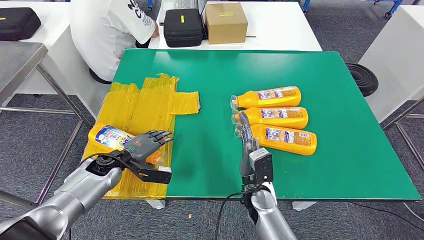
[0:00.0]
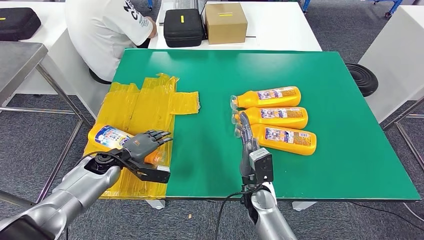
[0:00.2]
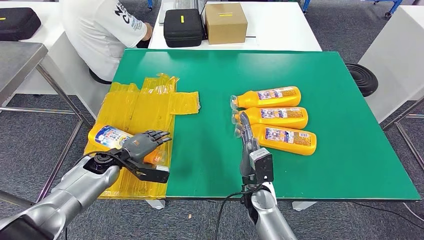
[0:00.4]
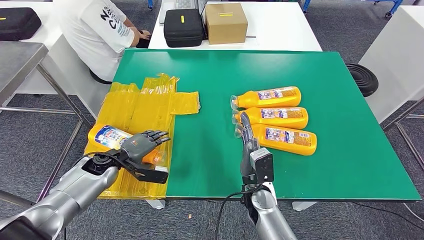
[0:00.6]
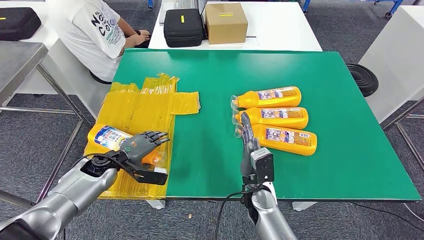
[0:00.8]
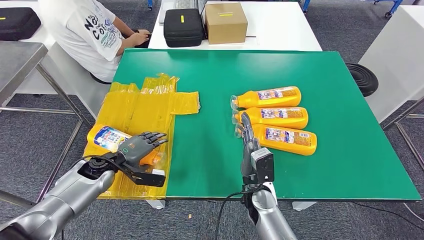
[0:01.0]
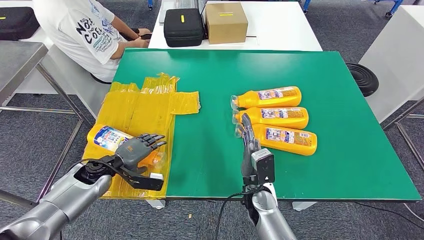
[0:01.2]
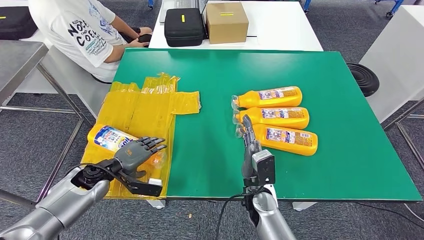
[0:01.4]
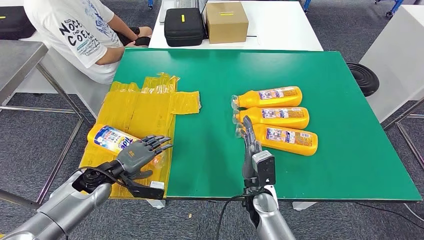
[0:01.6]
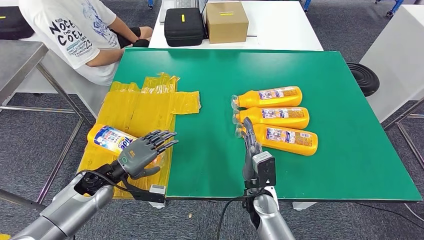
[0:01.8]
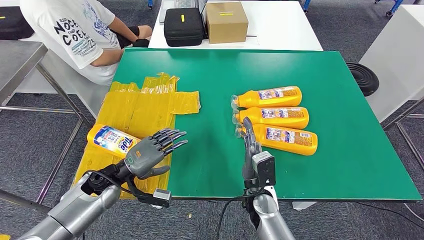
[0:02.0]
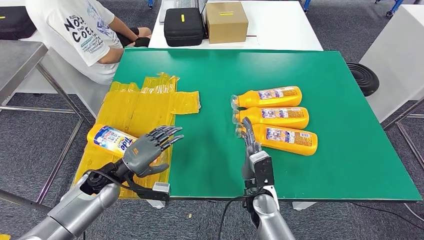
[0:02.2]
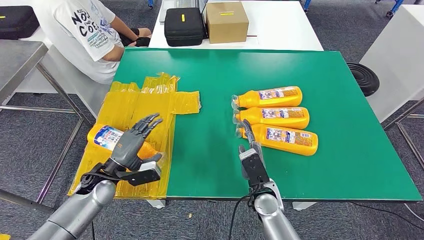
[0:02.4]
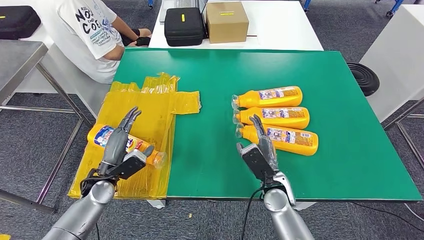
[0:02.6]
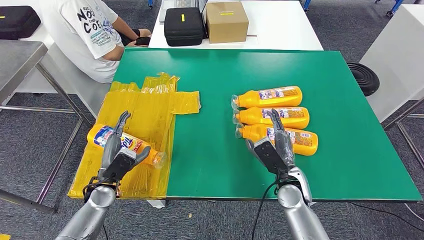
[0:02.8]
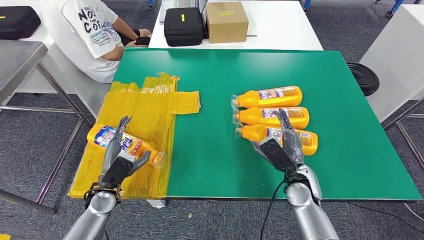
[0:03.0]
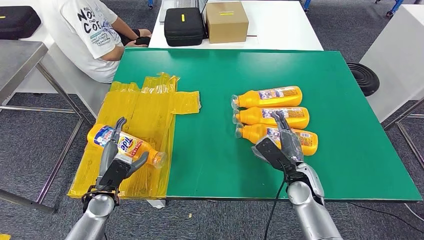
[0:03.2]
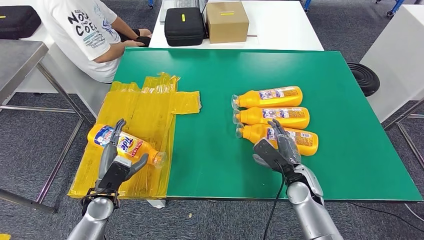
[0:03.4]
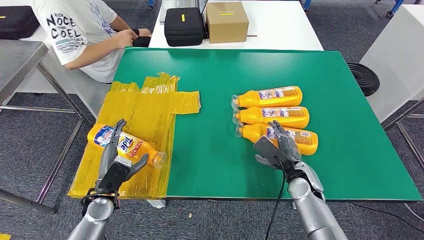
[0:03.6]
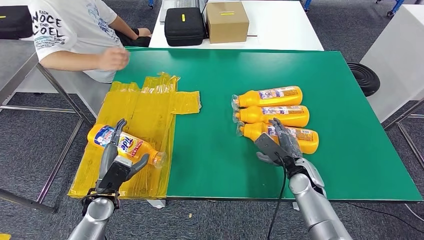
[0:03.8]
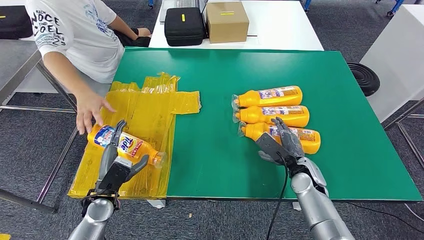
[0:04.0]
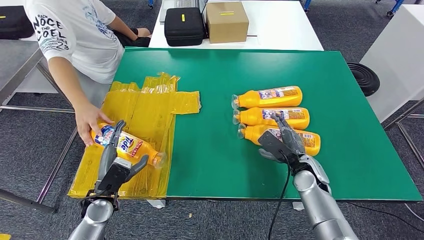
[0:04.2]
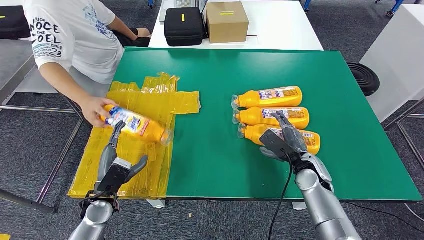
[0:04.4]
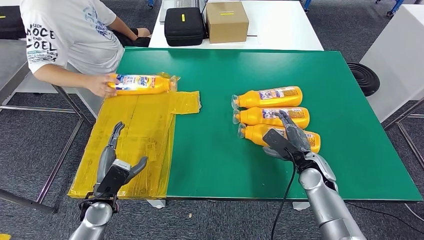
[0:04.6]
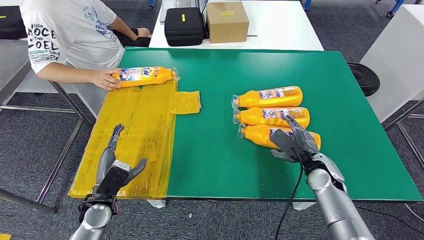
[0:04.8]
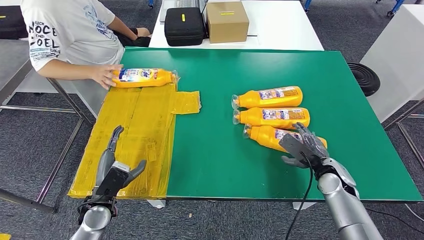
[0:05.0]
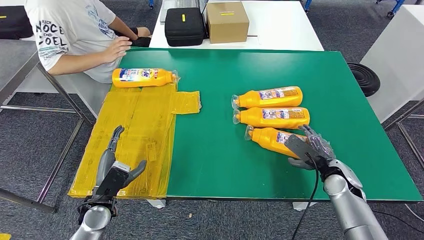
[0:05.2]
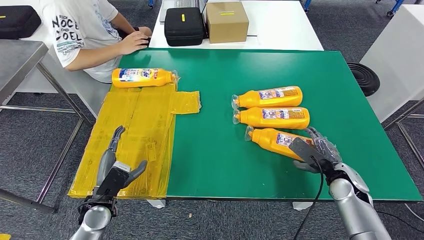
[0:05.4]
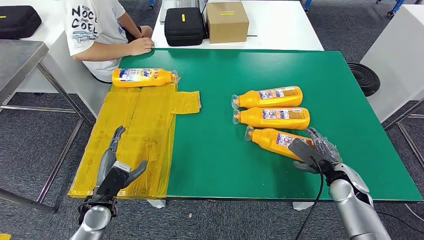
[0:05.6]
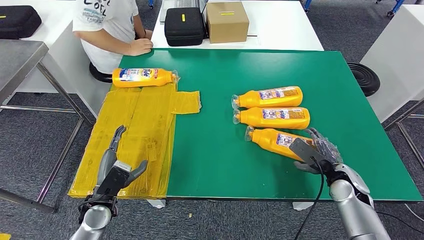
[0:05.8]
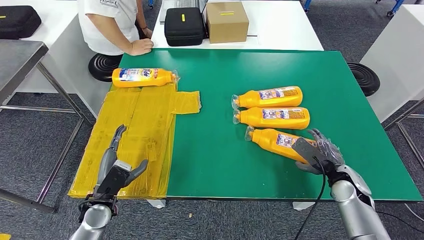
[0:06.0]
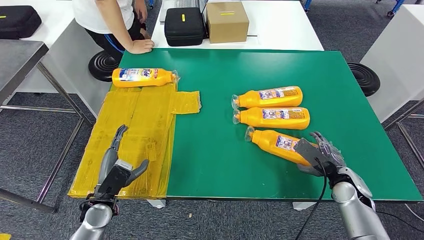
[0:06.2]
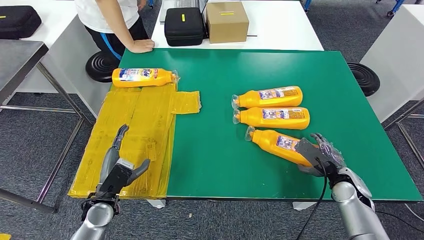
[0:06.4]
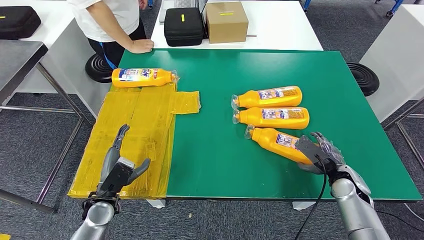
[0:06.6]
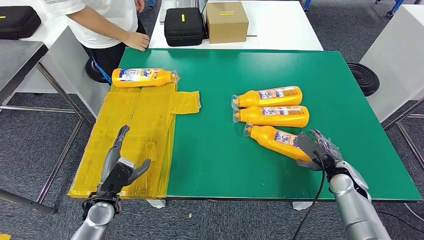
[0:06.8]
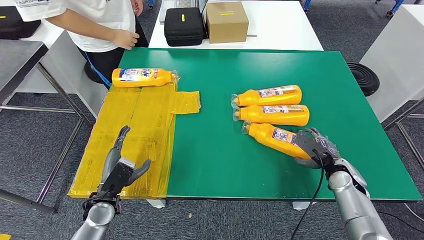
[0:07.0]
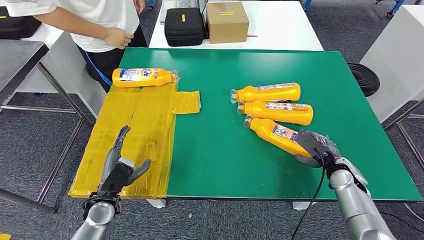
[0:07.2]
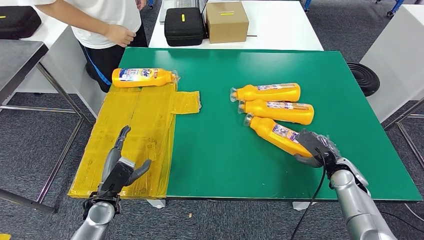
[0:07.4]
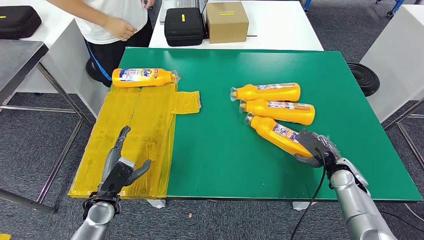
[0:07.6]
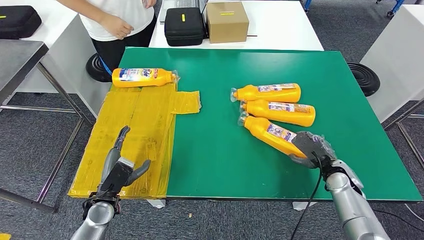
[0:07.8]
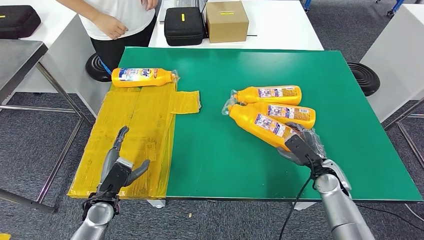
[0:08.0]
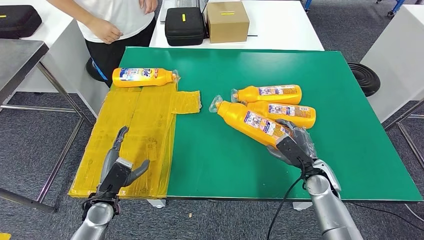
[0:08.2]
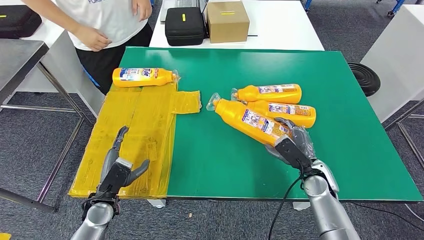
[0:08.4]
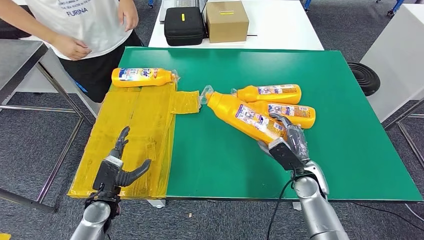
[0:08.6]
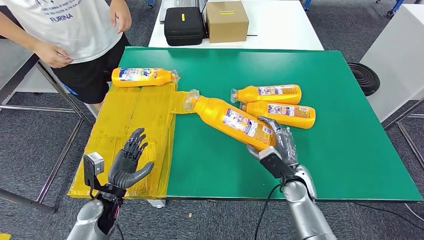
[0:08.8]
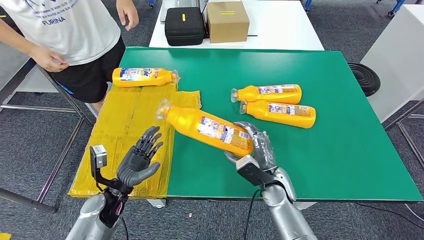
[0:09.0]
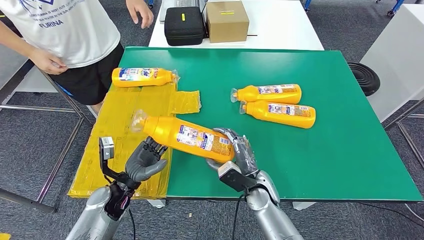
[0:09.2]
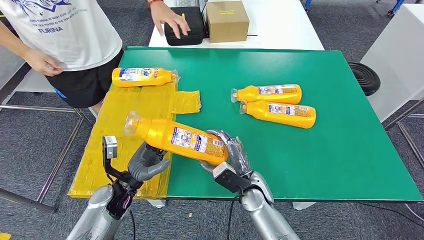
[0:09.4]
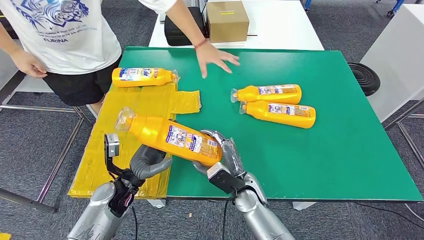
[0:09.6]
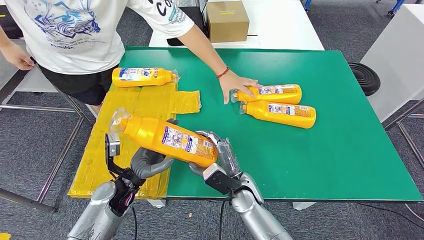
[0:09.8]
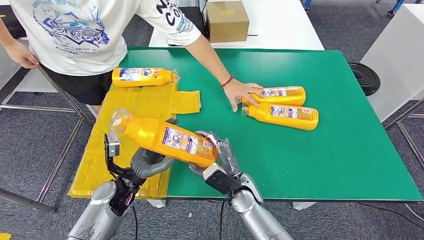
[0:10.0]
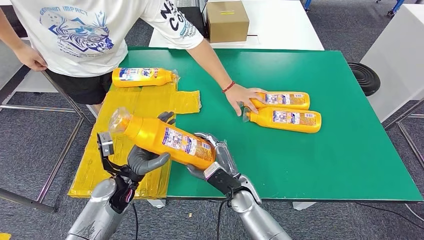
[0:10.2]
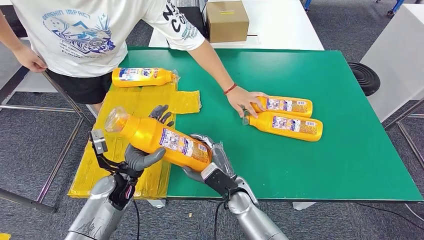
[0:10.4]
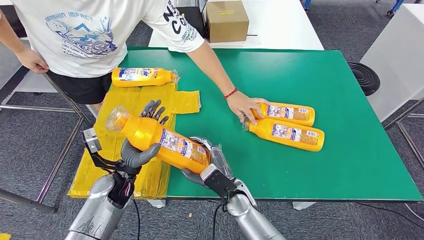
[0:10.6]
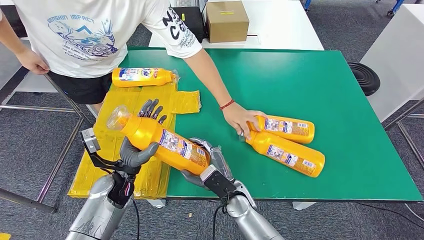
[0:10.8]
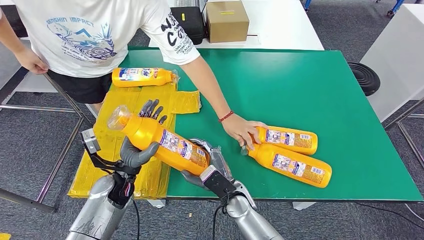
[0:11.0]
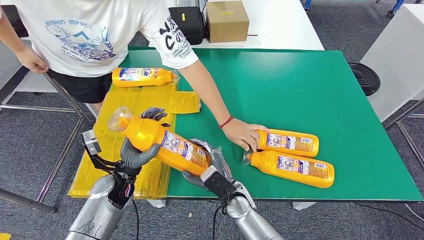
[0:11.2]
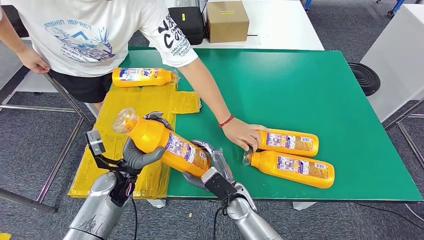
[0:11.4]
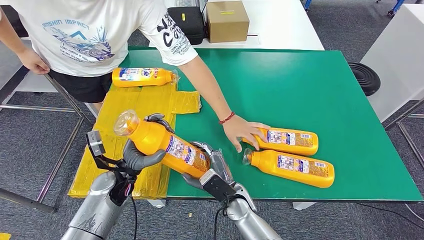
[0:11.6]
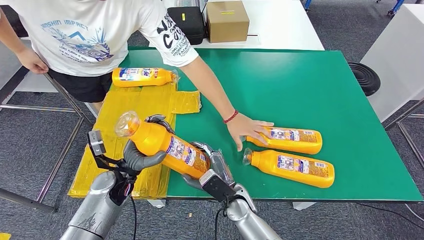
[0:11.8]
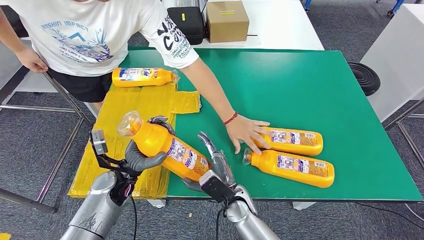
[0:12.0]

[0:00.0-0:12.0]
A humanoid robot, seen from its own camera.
Step, 0:00.0 to 0:09.8: Pick up the bottle from the table.
0:00.0 to 0:01.6: The hands make only small movements.
0:01.6 to 0:03.0: The left hand shifts by some 5 cm. The right hand heads to the right, covering some 10 cm.
0:03.0 to 0:04.4: The right hand shifts by some 5 cm.
0:06.0 to 0:07.6: There are only small adjustments of the hands.

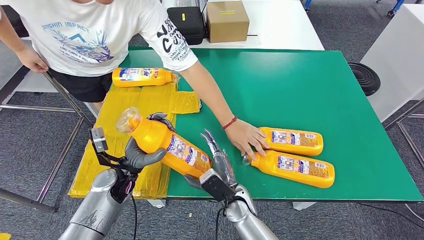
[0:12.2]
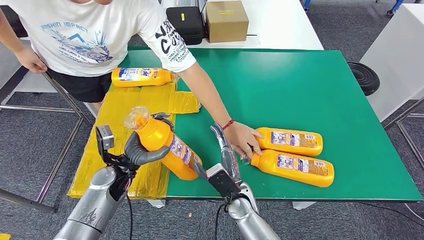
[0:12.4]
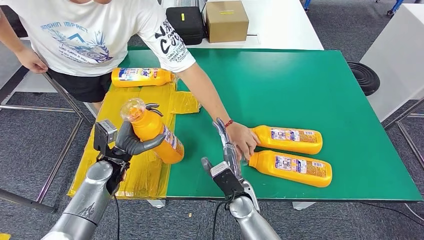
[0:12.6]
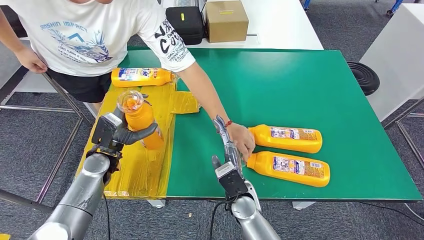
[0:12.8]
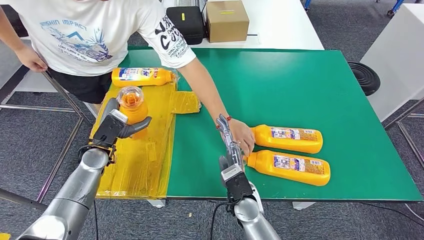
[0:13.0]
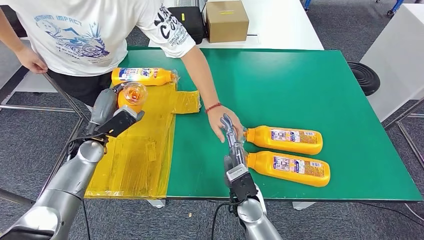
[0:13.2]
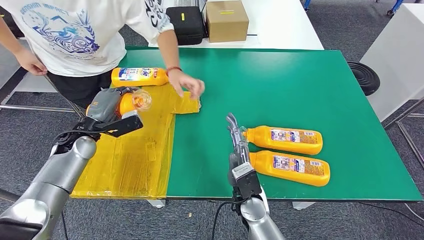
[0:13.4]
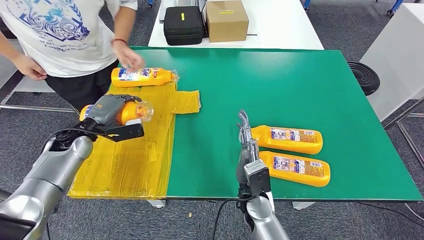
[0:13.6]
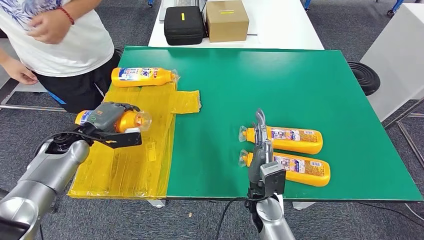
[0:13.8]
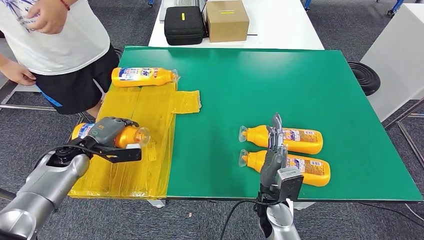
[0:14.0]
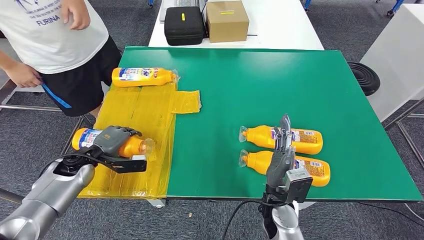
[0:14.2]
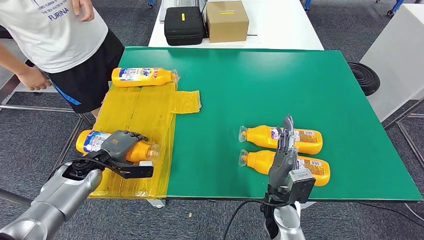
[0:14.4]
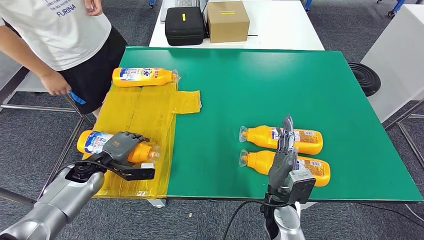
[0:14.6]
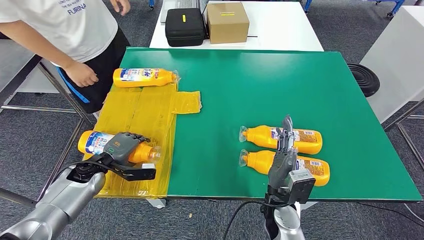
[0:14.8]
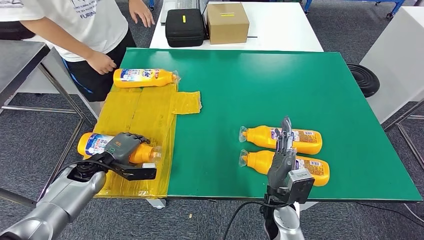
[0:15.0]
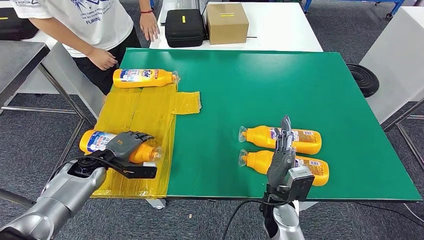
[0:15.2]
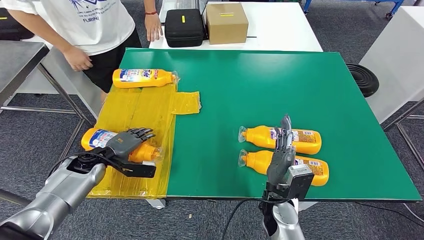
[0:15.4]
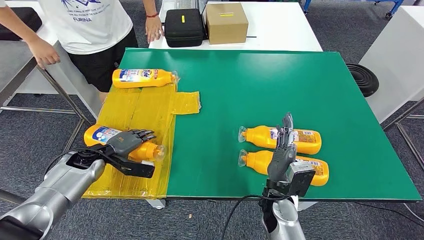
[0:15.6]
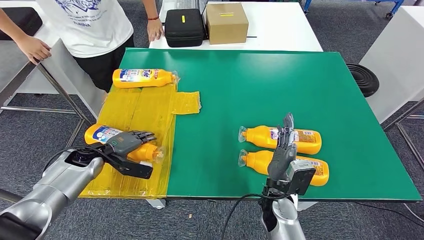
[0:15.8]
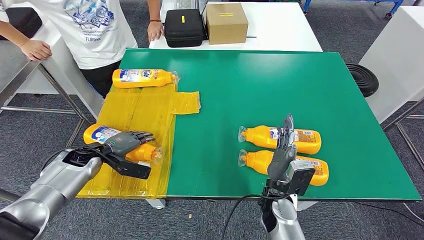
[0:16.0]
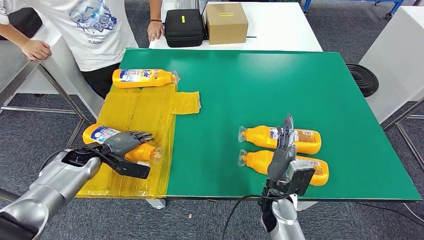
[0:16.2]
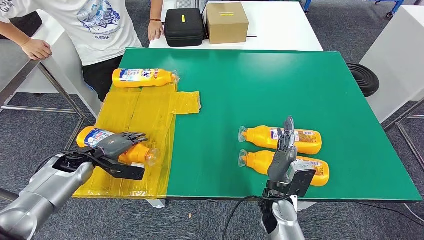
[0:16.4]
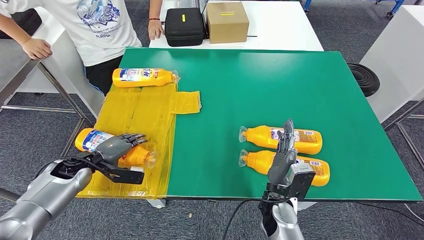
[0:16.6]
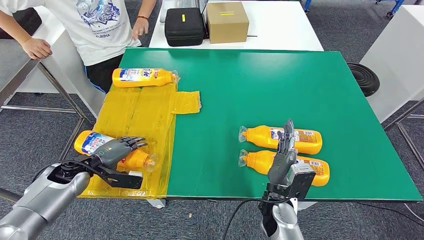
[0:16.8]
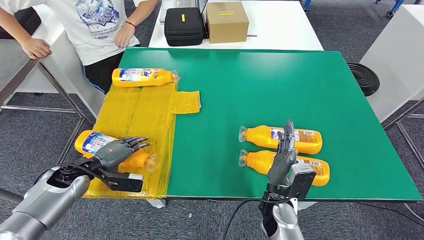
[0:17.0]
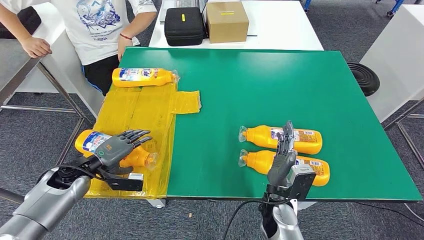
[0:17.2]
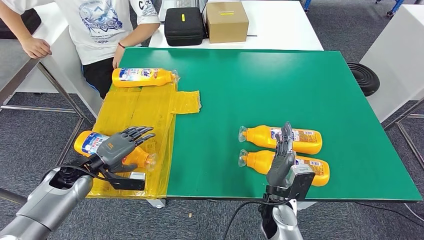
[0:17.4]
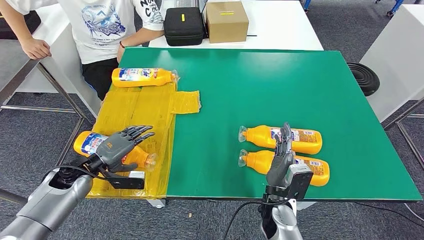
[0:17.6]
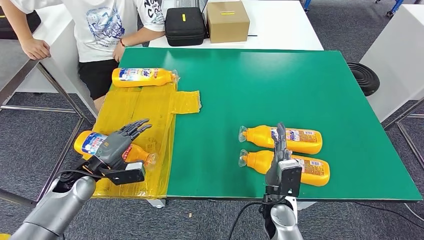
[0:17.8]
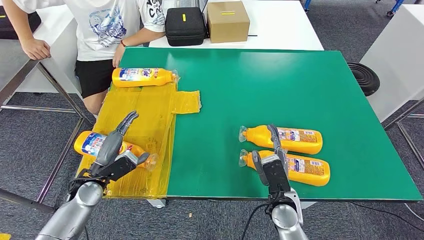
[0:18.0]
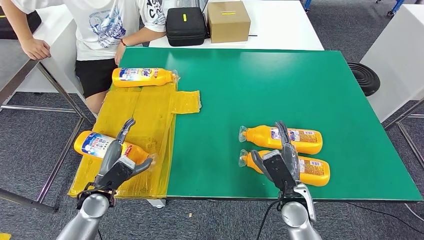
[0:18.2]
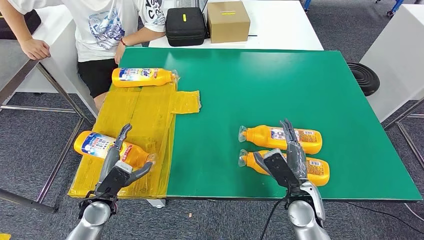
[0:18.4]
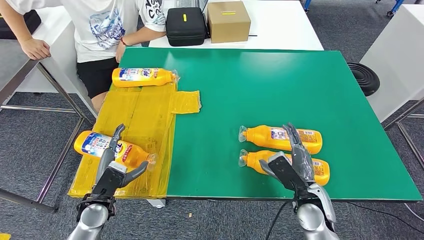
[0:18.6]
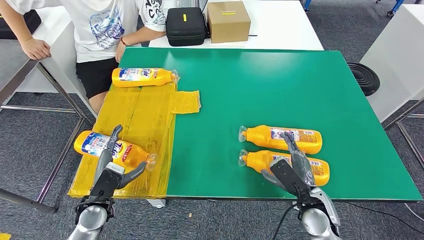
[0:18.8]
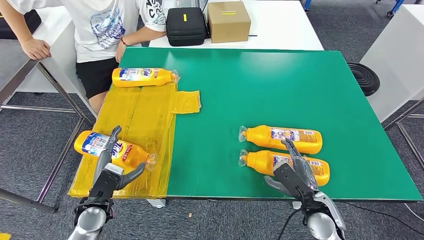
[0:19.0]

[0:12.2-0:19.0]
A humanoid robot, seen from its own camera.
Step, 0:12.2 to 0:14.2: Flip the bottle to face forward.
0:15.0 to 0:16.2: The hands stay close to where they were, moving slightly.
0:16.2 to 0:17.6: The left hand changes place by roughly 5 cm.
0:17.6 to 0:19.0: The right hand travels to the right by about 10 cm; the left hand shifts approximately 10 cm backward and to the right.
